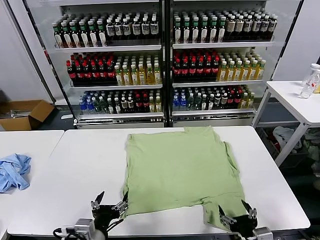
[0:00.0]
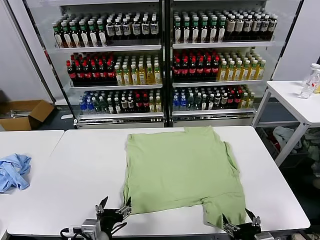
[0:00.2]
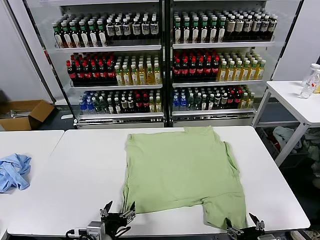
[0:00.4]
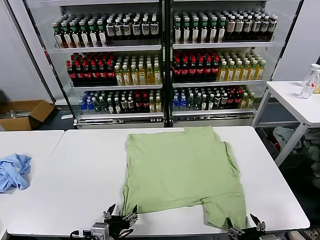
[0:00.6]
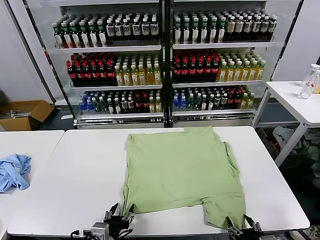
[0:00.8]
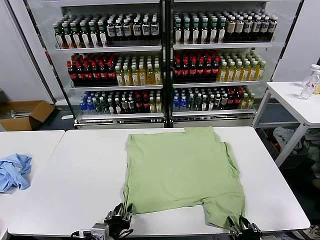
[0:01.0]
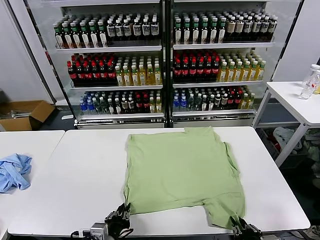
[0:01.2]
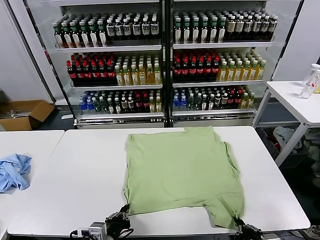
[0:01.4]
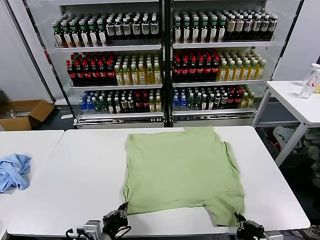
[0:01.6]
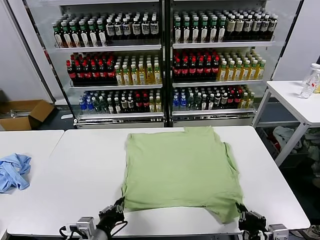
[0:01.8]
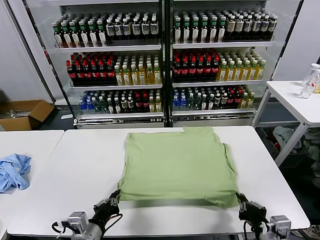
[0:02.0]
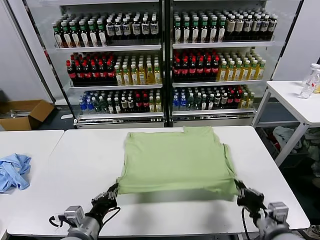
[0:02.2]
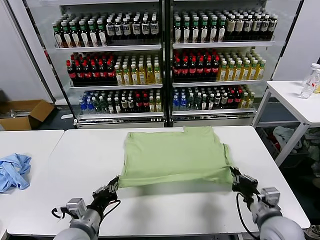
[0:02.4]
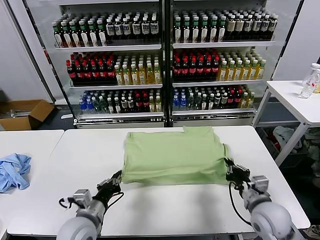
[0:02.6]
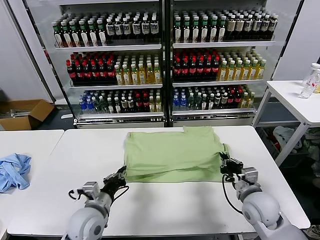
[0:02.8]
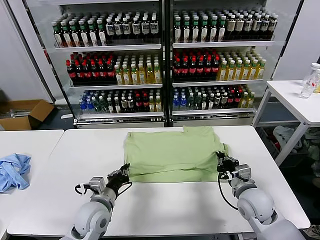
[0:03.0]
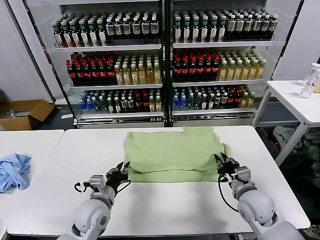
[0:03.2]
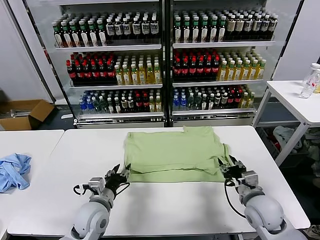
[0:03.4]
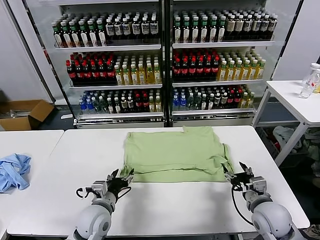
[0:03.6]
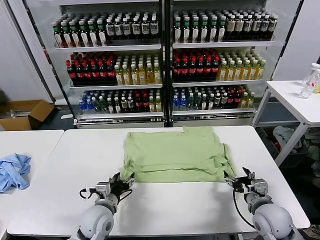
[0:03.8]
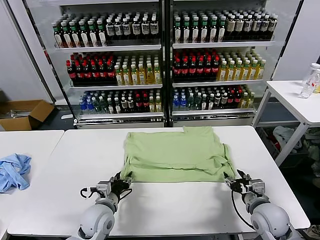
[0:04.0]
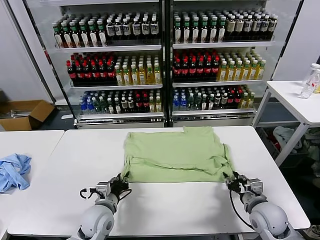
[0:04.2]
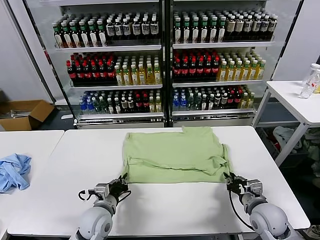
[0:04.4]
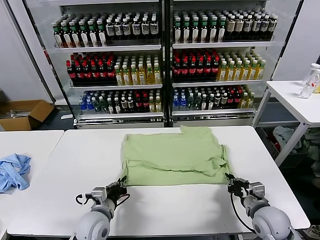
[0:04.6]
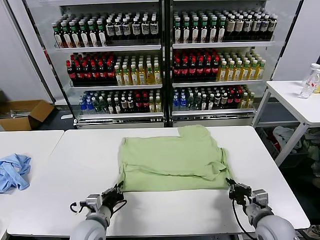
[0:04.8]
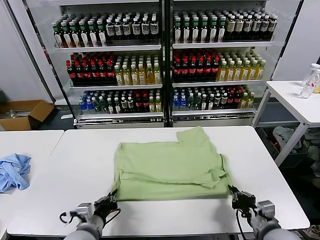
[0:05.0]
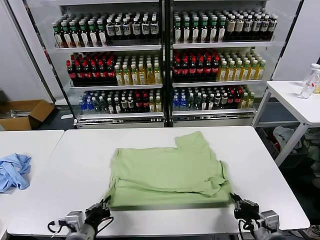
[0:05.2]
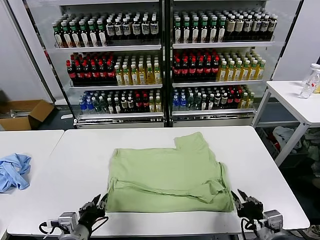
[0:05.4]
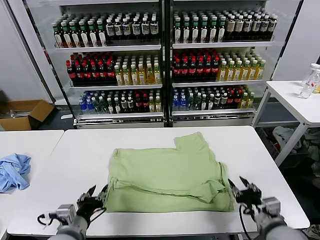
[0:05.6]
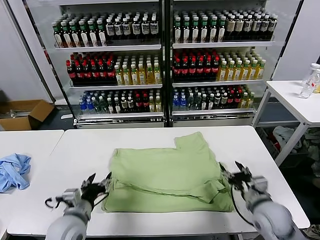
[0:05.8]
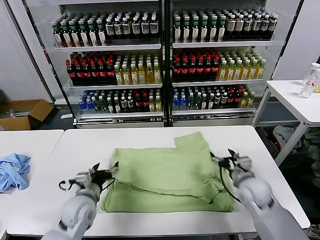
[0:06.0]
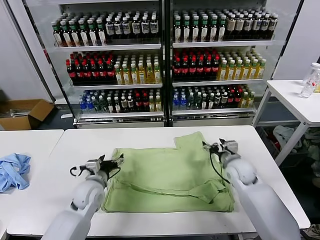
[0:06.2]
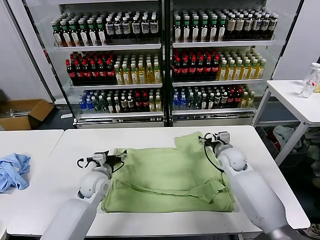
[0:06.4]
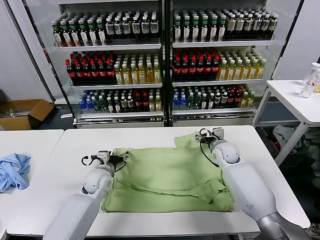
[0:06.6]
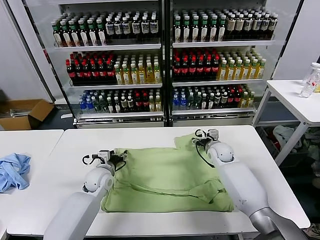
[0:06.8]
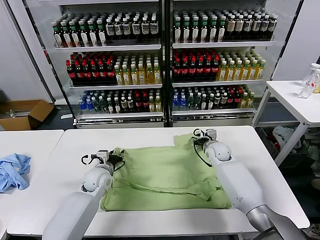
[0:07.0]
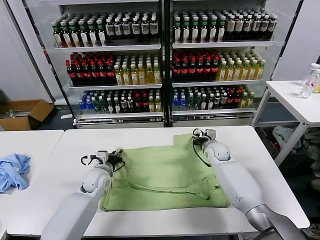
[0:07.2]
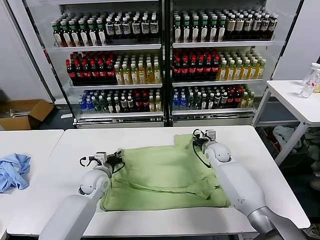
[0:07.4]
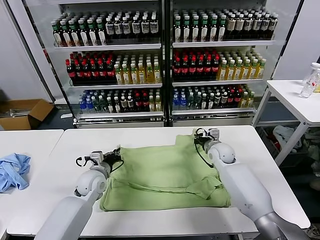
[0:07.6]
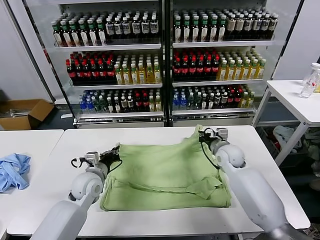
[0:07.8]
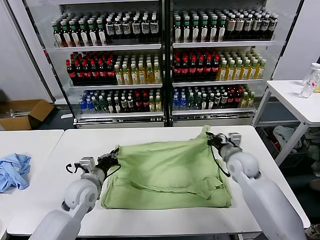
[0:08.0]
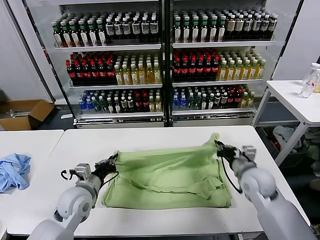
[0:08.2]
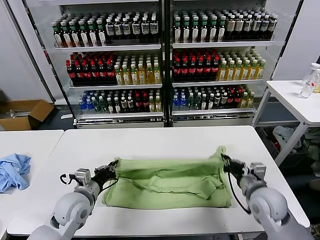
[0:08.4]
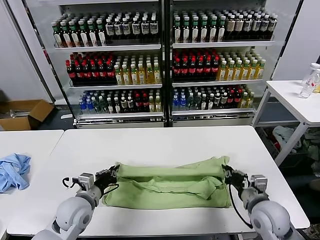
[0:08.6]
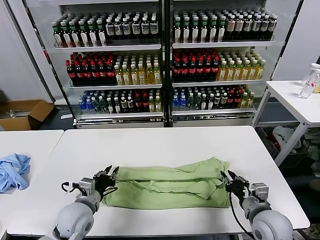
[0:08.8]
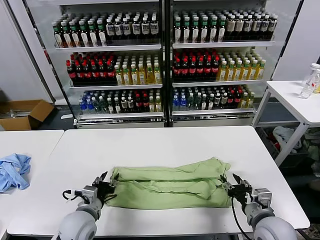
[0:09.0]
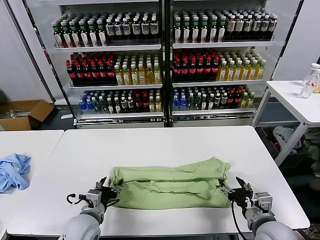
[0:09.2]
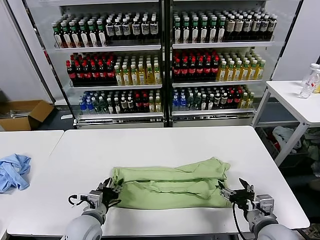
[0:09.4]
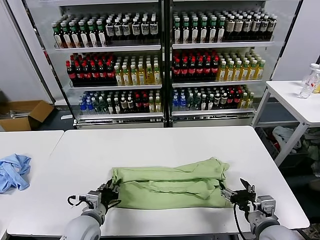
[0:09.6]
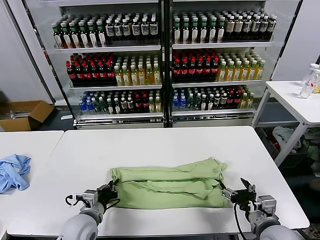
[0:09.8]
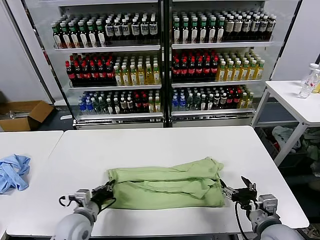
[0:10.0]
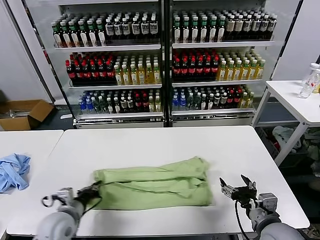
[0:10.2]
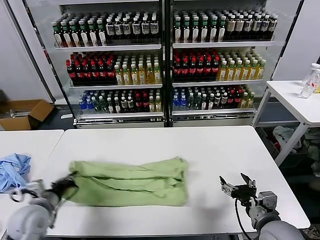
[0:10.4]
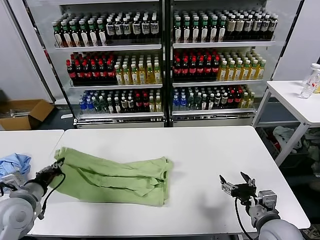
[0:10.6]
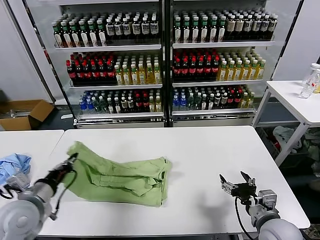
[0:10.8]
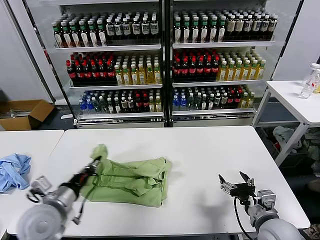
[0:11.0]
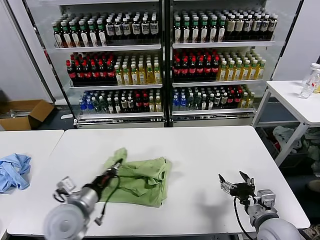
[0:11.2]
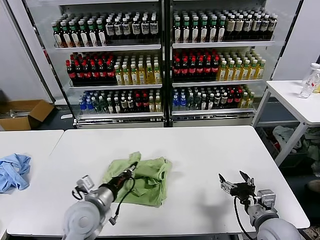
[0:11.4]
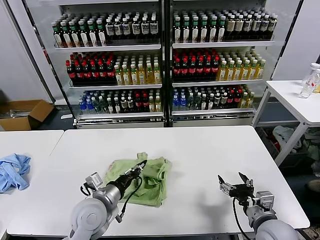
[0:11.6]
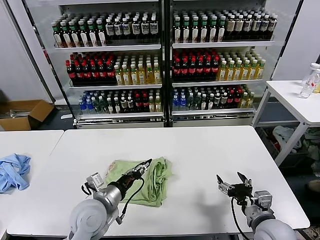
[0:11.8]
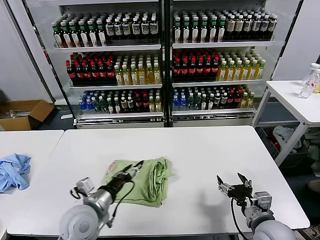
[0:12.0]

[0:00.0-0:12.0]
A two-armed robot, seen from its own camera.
Task of the whole recording: fold and organize the clothes.
Step, 0:00.0 to 0:01.4: use both grippers simultaneously to clamp the lower edge of the clothing fabric.
Step, 0:01.6 to 0:03.2: use both grippers to drag the lower edge of the fabric forward and fold it over the upper edge.
Step, 0:03.4 to 0:05.2: Drag the clothes downward with both gripper.
Step, 0:05.4 to 0:07.4: use both grippers simultaneously to clamp the upper edge of the clothing fabric.
Step, 0:07.6 to 0:08.8: use both grippers to drag the upper edge of the fabric backward and fold it over the lower edge.
Step, 0:09.0 to 0:09.8: use the left gripper to clamp the left edge of the fabric.
Step, 0:10.0 to 0:11.6: use the left gripper to drag the left edge of the fabric to the left and folds it over the right edge.
0:01.6 to 0:03.0: The two grippers go about 15 cm forward.
0:03.0 to 0:04.4: The left gripper opens, then closes again; the right gripper ends up approximately 5 cm from where it was, and opens and closes again.
0:04.4 to 0:06.0: The left gripper goes backward and returns, about 10 cm each way, and opens its fingers; the right gripper shifts roughly 15 cm forward, and opens.
0:06.0 to 0:07.6: The two grippers go approximately 10 cm forward. The right gripper closes up. Meanwhile the left gripper closes its fingers.
0:07.6 to 0:09.0: The right gripper moves backward, about 30 cm, and opens up; the left gripper heads backward, covering about 15 cm, and opens.
0:09.0 to 0:10.4: The left gripper moves to the left, roughly 15 cm, and closes.
0:10.4 to 0:12.0: The left gripper goes approximately 15 cm to the right, and opens up.

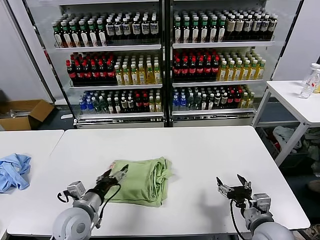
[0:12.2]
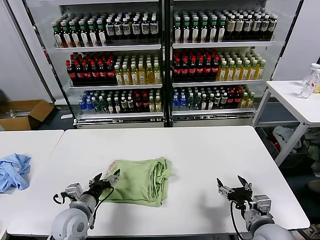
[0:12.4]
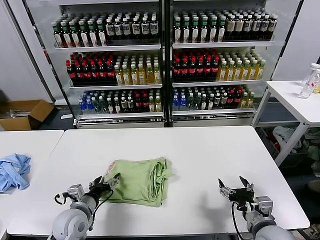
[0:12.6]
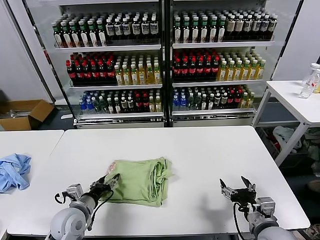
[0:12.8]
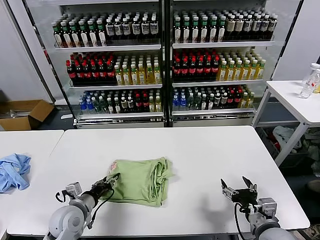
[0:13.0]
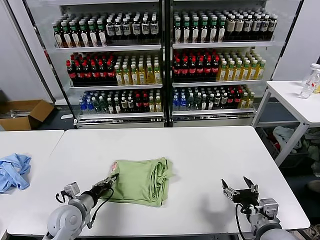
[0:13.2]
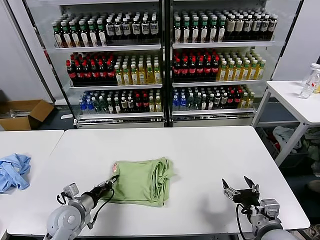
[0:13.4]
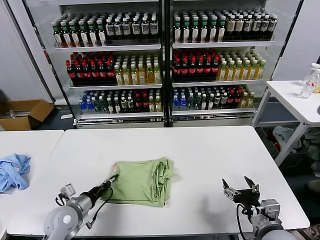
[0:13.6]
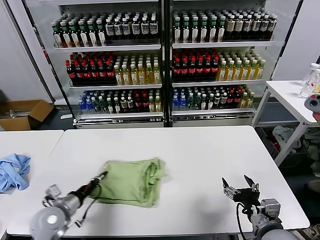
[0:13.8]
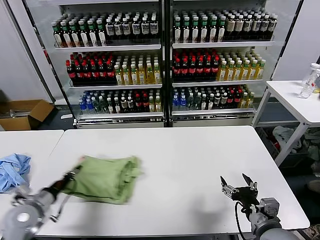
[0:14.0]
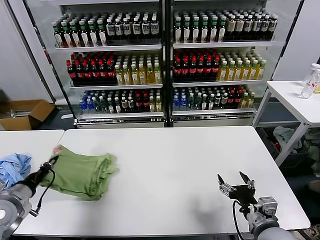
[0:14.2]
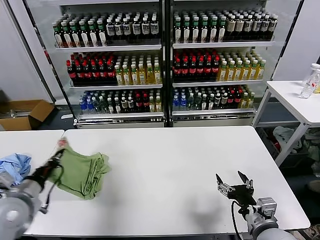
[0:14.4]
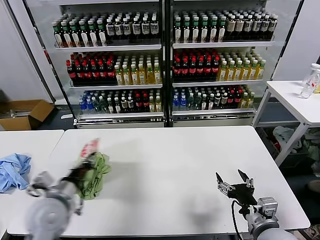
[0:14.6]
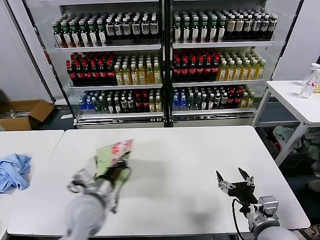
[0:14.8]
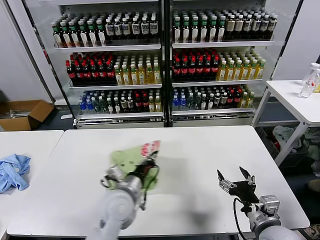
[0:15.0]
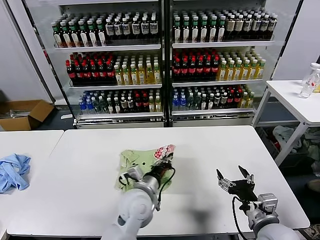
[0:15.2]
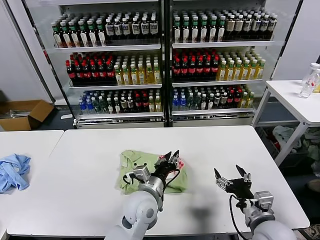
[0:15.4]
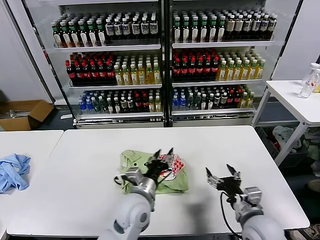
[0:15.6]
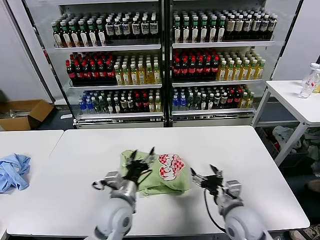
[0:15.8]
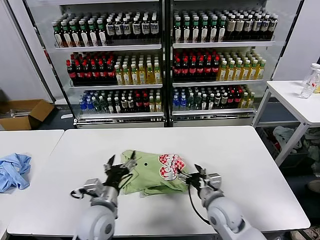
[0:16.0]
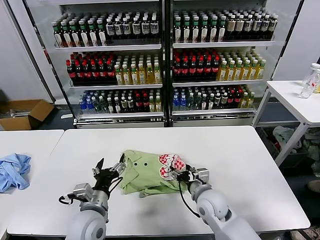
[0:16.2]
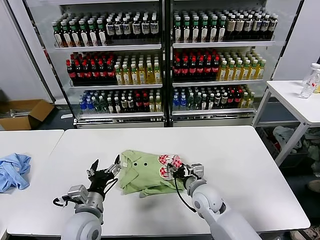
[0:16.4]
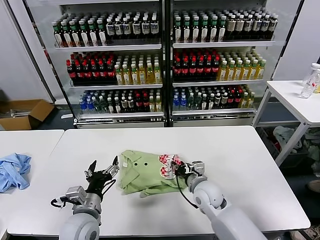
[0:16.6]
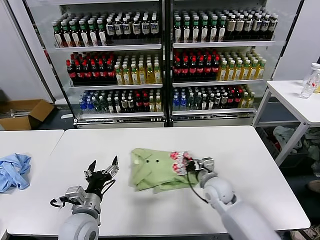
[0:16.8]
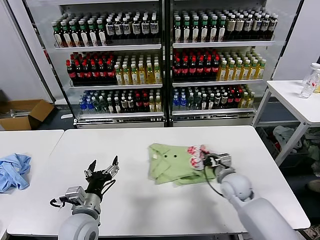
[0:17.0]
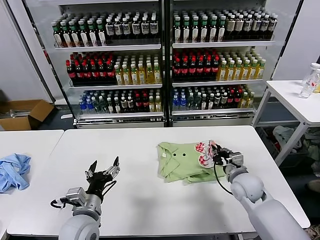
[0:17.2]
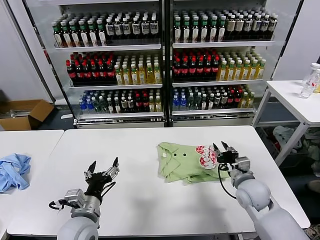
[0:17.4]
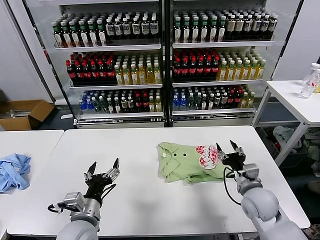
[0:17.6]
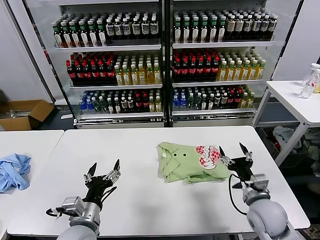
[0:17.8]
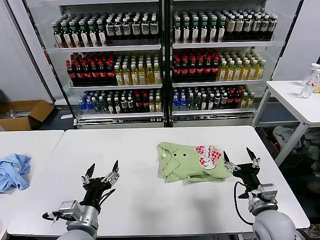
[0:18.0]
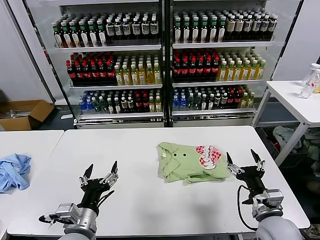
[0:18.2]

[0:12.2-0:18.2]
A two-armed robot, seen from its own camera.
Task of the whole recording: fold and organize the clothes.
Step, 0:12.2 to 0:15.4: Flip the folded clothes over with left gripper.
Step, 0:15.6 to 0:17.2: Drag the clothes to the center of the table.
0:12.2 to 0:13.8: The left gripper is displaced to the left by about 10 cm, and closes up.
0:13.8 to 0:15.2: The left gripper goes approximately 25 cm to the right.
0:15.2 to 0:16.6: The right gripper moves forward and to the left, roughly 20 cm, and closes up. The left gripper goes about 15 cm to the left and backward, and opens up.
0:16.6 to 0:18.2: The right gripper is displaced to the right and backward by approximately 20 cm, and opens up. Meanwhile the left gripper travels backward by some 5 cm.
